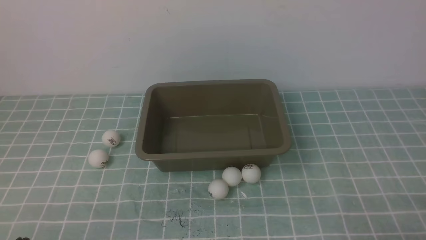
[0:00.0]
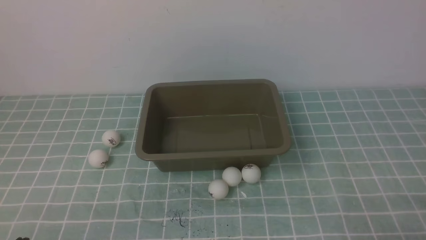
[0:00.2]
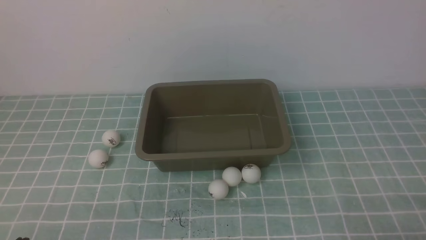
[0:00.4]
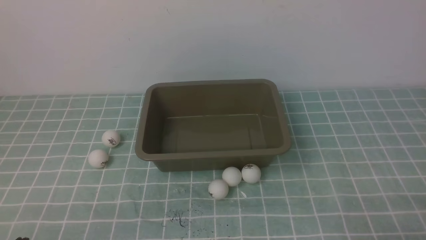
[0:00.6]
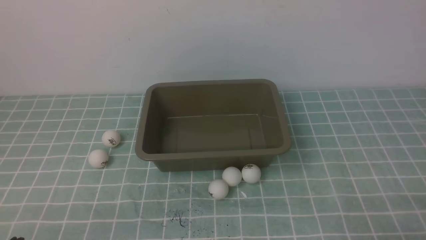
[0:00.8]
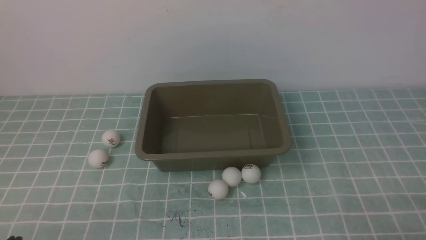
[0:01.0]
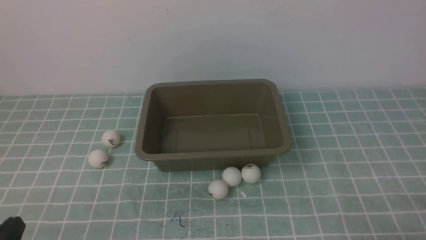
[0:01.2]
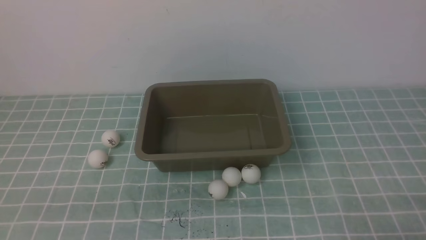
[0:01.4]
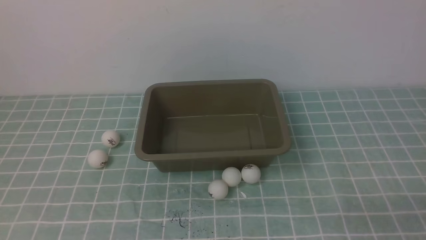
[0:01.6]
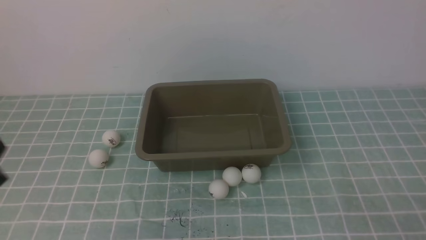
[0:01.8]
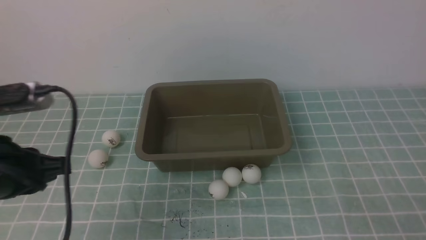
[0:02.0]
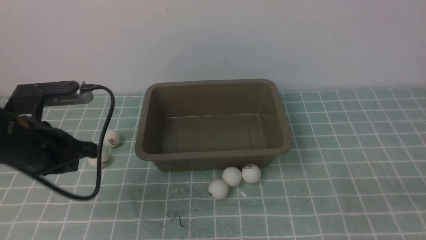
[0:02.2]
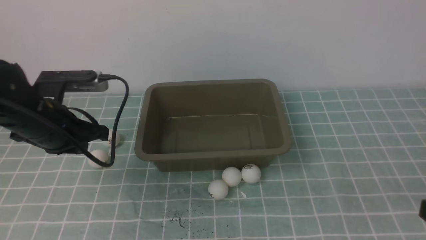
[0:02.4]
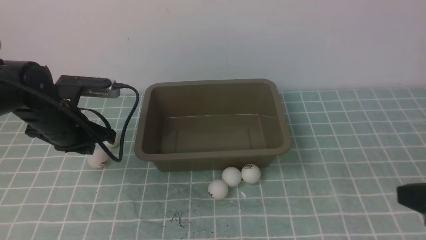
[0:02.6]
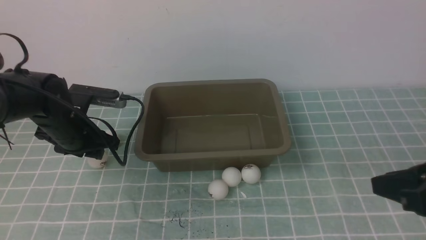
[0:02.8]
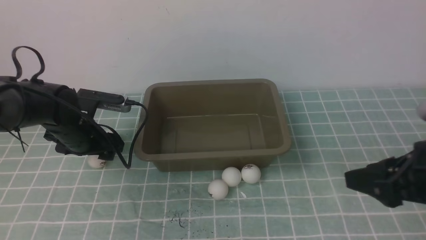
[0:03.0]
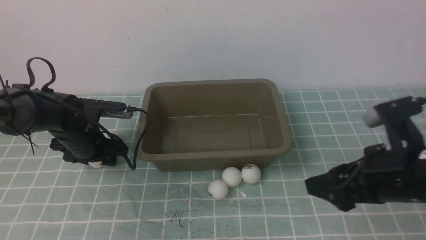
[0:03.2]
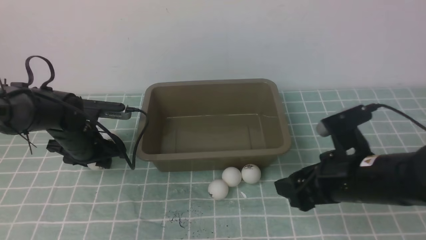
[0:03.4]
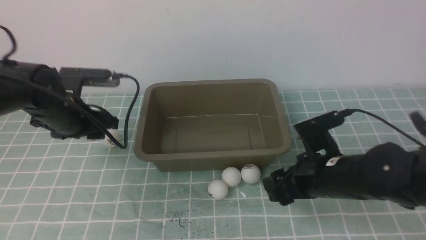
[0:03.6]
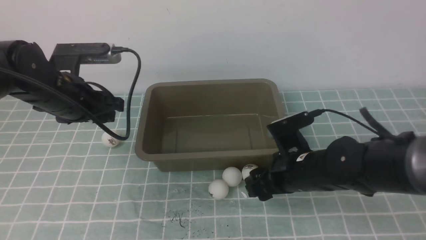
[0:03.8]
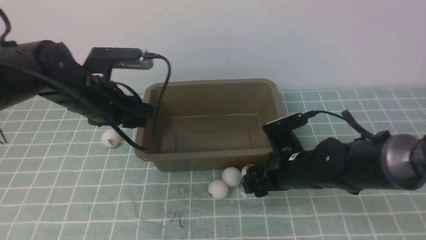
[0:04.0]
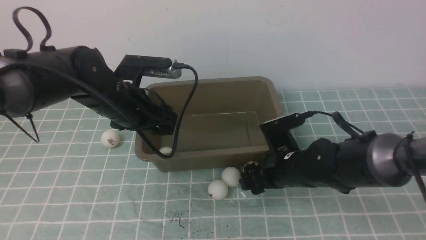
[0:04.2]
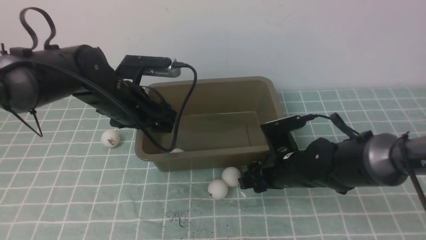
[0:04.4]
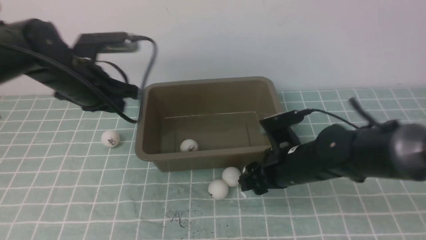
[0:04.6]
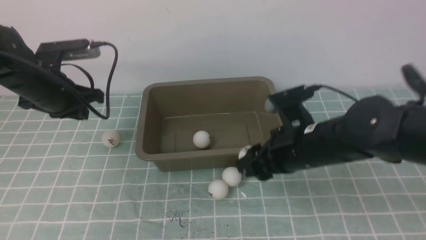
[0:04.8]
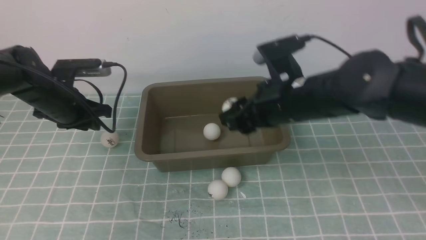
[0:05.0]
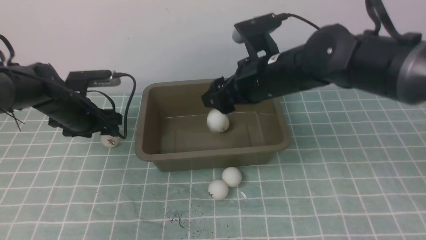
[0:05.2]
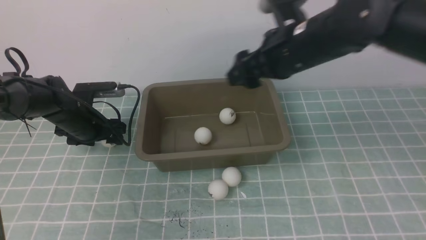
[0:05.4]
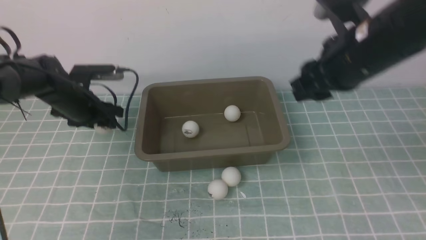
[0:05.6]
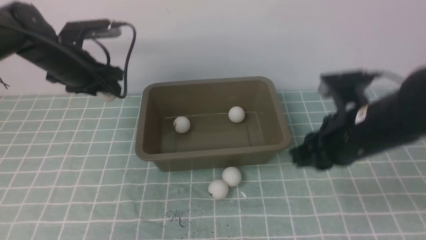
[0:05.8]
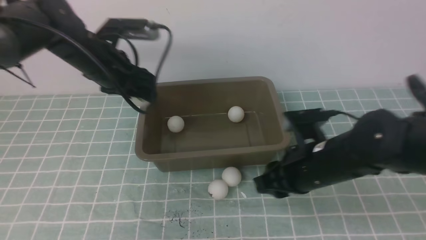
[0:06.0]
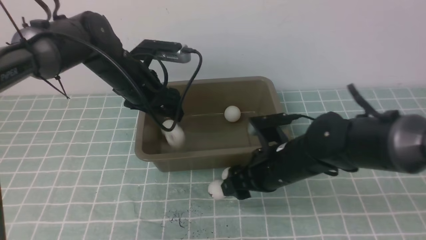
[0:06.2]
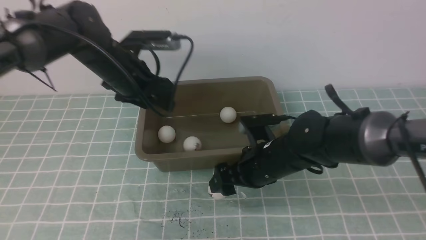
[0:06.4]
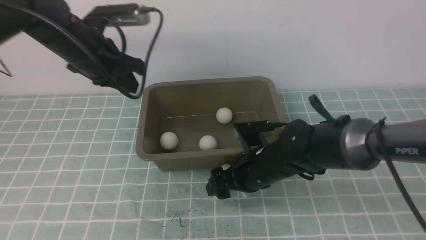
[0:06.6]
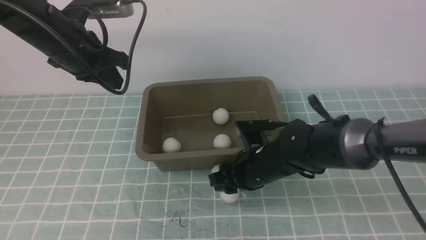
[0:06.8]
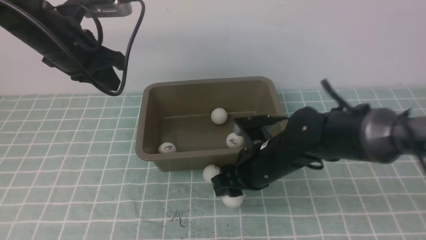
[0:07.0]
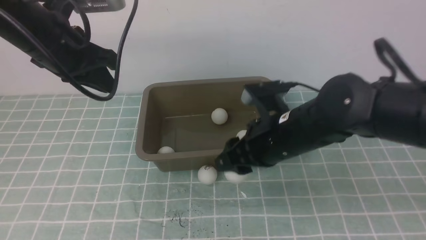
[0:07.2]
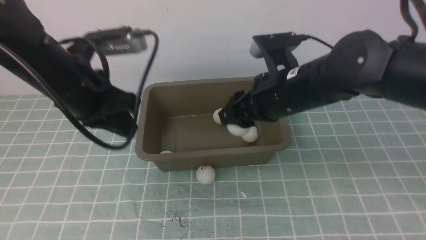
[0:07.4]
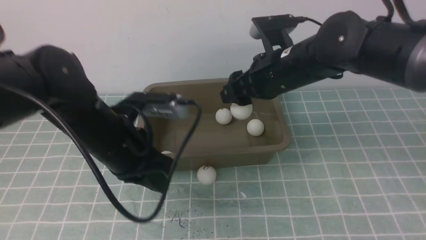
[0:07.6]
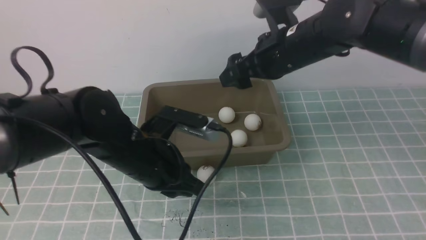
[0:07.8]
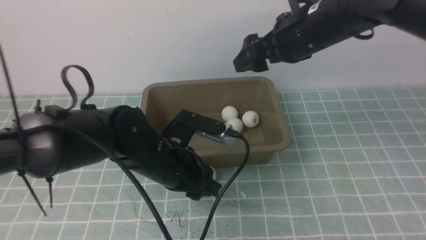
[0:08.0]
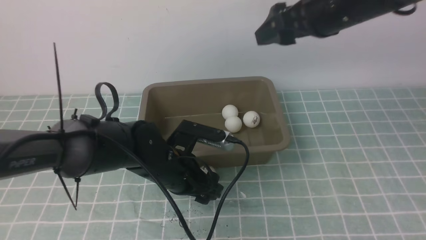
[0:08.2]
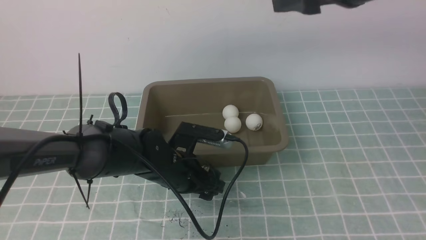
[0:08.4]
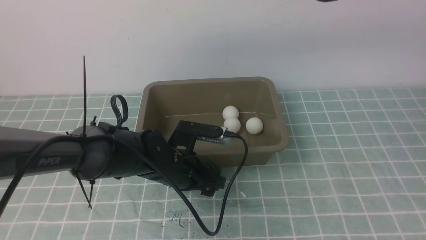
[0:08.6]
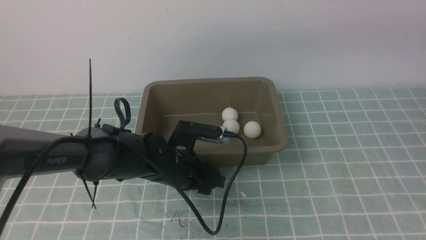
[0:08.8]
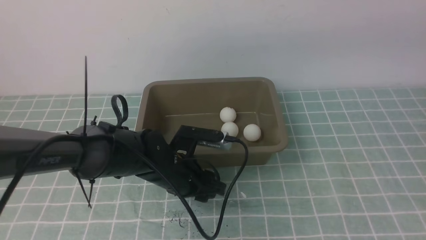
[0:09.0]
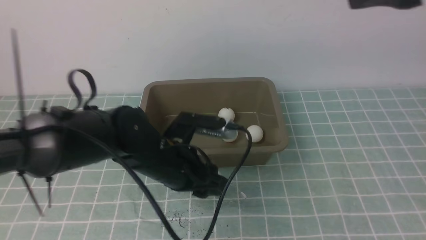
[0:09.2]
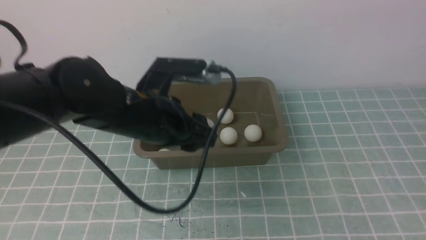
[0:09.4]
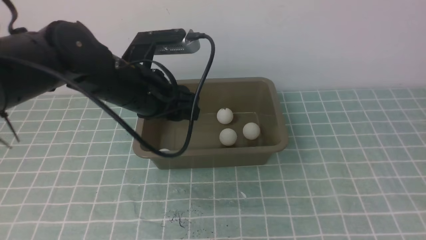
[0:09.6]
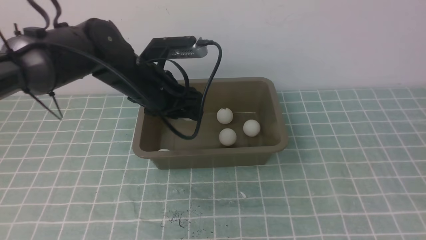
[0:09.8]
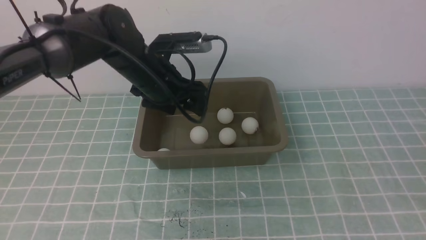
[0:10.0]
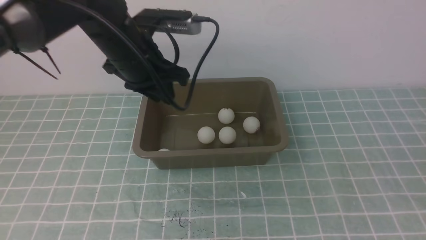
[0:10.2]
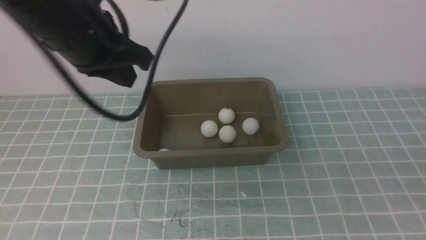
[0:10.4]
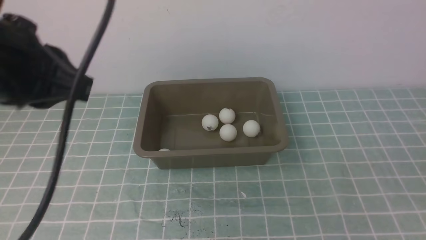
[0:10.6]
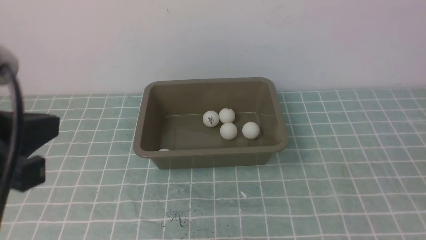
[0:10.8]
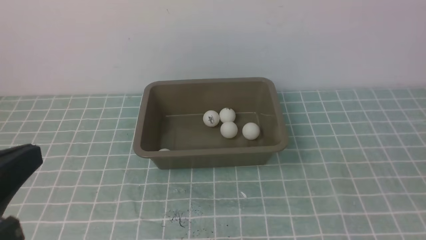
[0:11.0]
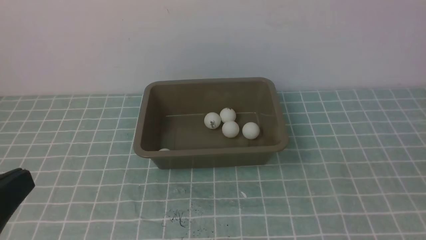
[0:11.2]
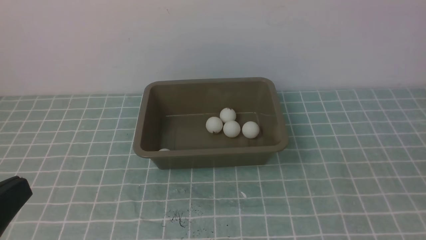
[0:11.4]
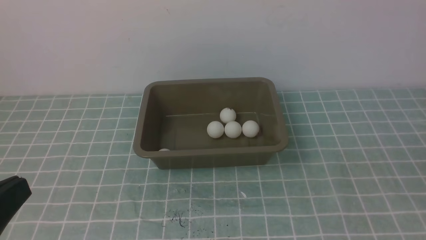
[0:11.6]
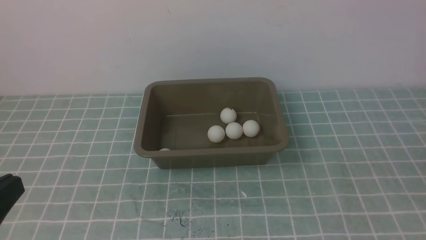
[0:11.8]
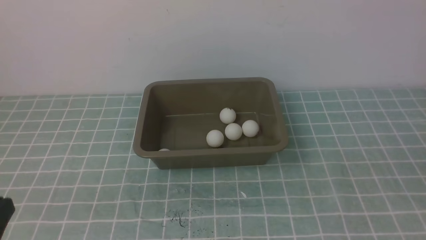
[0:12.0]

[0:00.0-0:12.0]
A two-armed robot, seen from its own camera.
Step, 0:00.0 to 0:03.4: use the left arm to clamp the table tennis ball closest to it.
Step, 0:03.6 to 0:04.0: use the left arm to put the table tennis ball into the box.
Step, 0:04.2 to 0:04.6: use the right arm to clamp the table tennis ball closest to it.
Step, 0:04.8 to 0:05.0: use the right arm to put the table tennis ball into the box.
Step, 0:05.2 to 0:06.0: use the left arm to clamp the table tennis ball closest to it.
Step, 0:06.4 to 0:06.6: use the left arm to put the table tennis ball into the box.
Step, 0:06.8 to 0:07.2: use the right arm to clamp the table tennis ball closest to it.
Step, 0:07.4 to 0:07.8: use the right arm to put the table tennis ball into the box.
Step, 0:08.0 to 0:09.2: use the left arm to clamp the table tennis ball closest to it.
Step, 0:09.4 to 0:09.8: use the left arm to put the table tennis ball into the box.
0:01.6 to 0:03.0: The left gripper goes roughly 30 cm forward, and opens its fingers; the right gripper is displaced forward, upward and to the left by some 15 cm, and opens.
0:03.0 to 0:04.4: The left gripper travels upward and to the right by approximately 10 cm, while the right gripper shifts some 25 cm downward, to the left and forward.
0:04.4 to 0:06.0: The right gripper moves upward, approximately 5 cm. The left gripper is displaced forward by approximately 5 cm, reaches roughly 10 cm downward, then returns, and closes and opens again.
0:06.0 to 0:07.6: The right gripper heads upward and forward, covering about 10 cm. The left gripper shifts approximately 15 cm backward, and closes up.
0:07.6 to 0:09.0: The right gripper heads upward, to the right and backward, covering about 25 cm, while the left gripper goes about 10 cm downward and to the right, and opens.
0:09.0 to 0:10.4: The left gripper moves upward, some 25 cm, and closes. Meanwhile the right gripper moves backward, downward and to the right, roughly 30 cm, and closes up.
0:10.4 to 0:12.0: The left gripper travels backward, downward and to the left by approximately 30 cm.

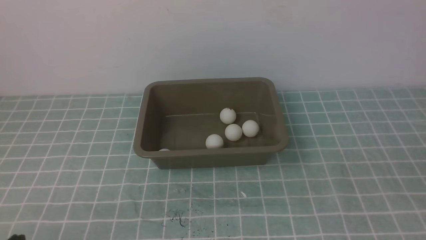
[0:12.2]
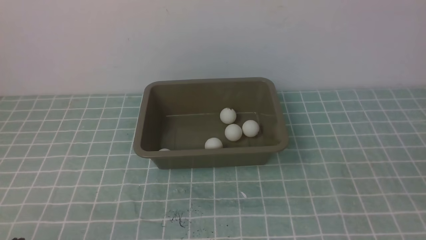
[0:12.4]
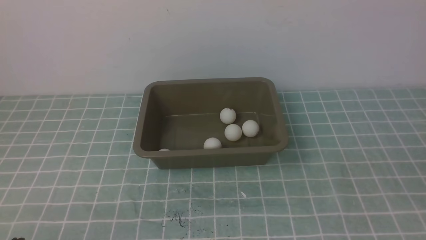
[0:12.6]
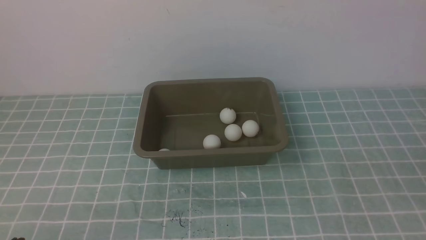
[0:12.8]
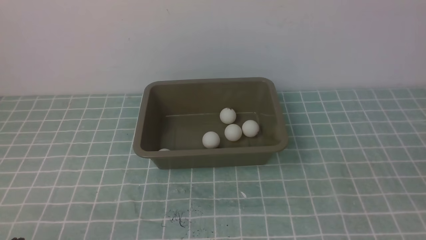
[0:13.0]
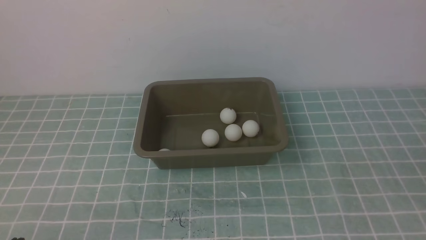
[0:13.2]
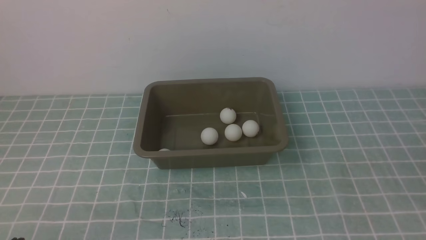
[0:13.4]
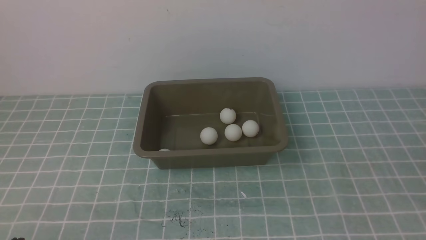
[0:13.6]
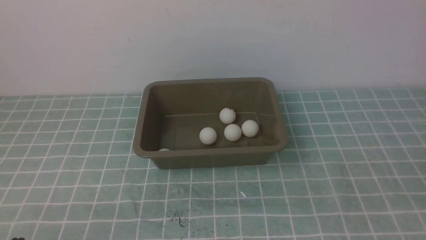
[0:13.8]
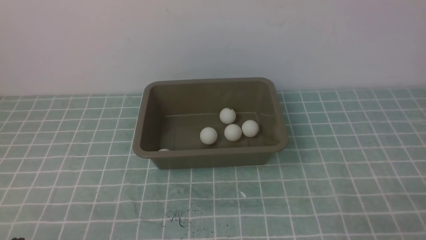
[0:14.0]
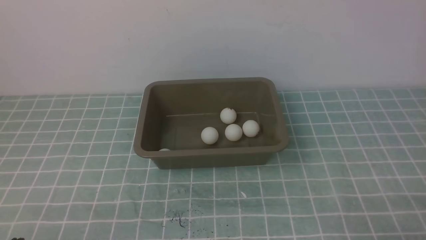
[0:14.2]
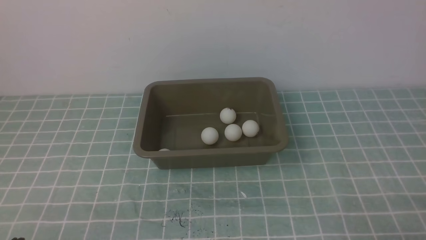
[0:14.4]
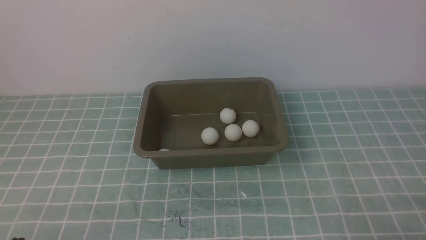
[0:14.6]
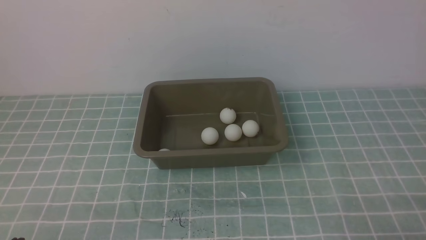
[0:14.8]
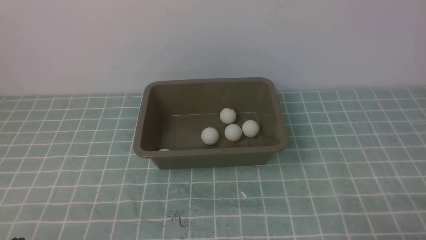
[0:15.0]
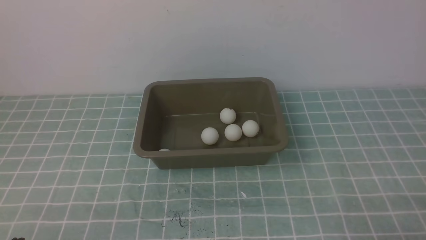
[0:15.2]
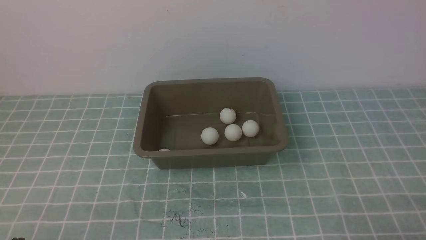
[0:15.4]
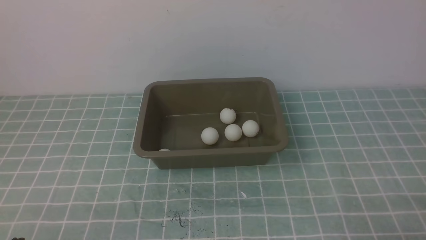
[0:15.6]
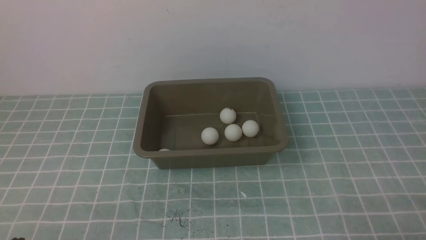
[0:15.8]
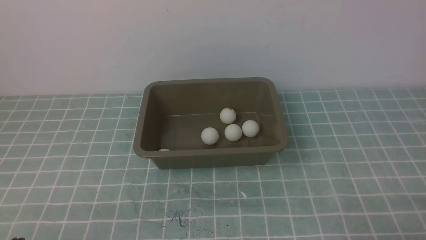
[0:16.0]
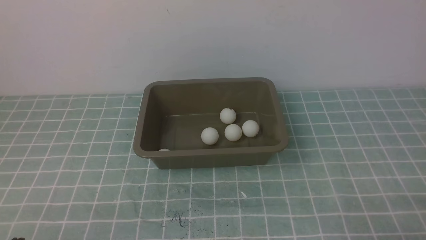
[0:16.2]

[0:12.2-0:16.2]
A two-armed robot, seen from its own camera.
0:14.8 to 0:16.2: Both grippers stay put.
